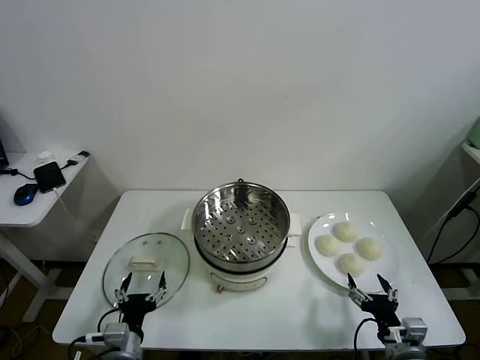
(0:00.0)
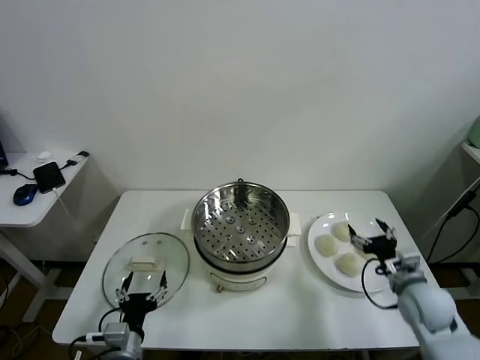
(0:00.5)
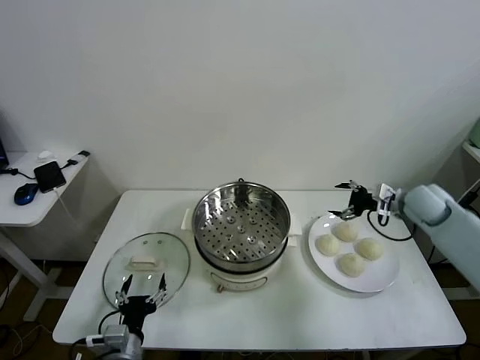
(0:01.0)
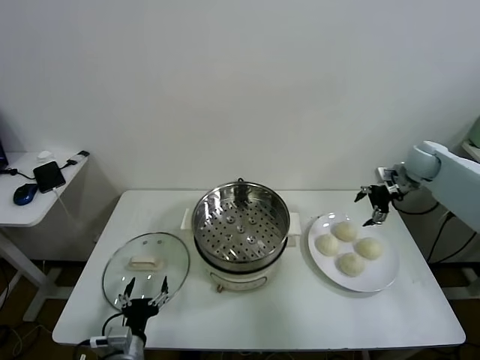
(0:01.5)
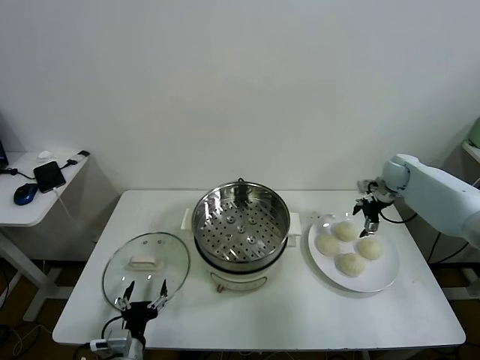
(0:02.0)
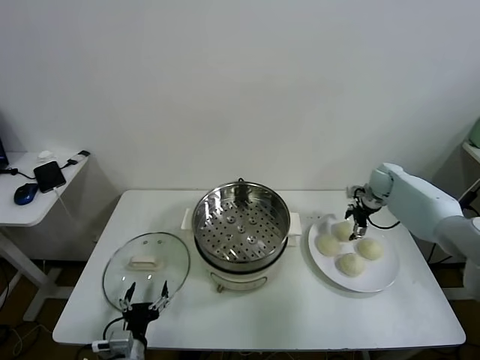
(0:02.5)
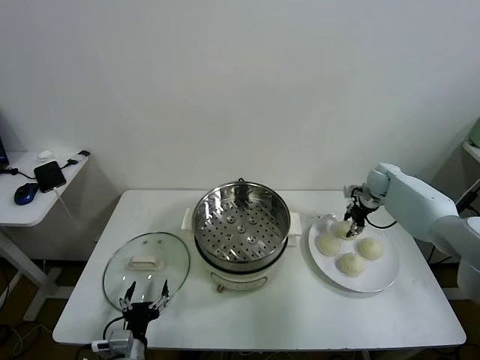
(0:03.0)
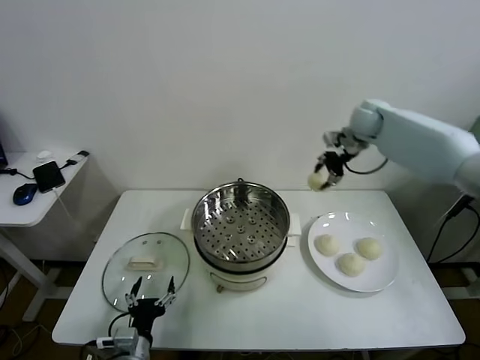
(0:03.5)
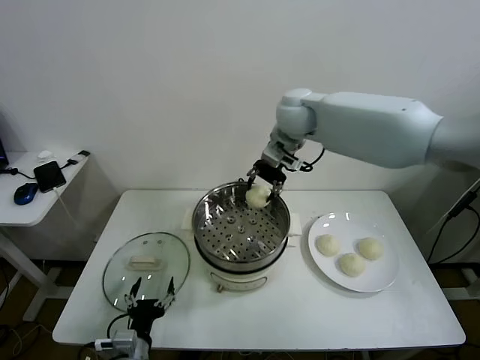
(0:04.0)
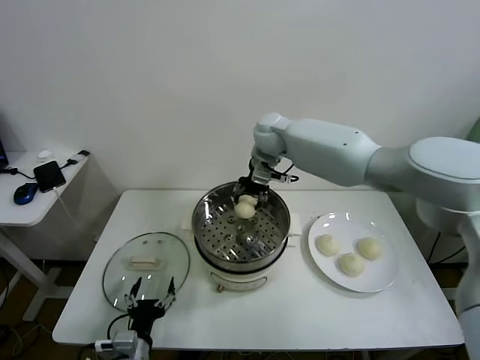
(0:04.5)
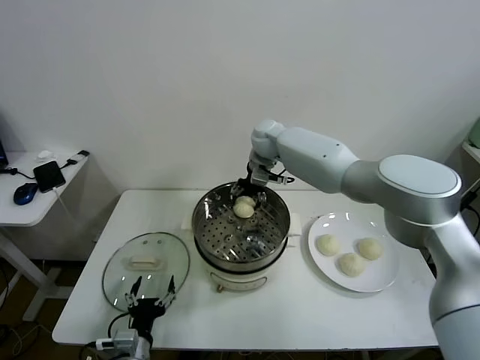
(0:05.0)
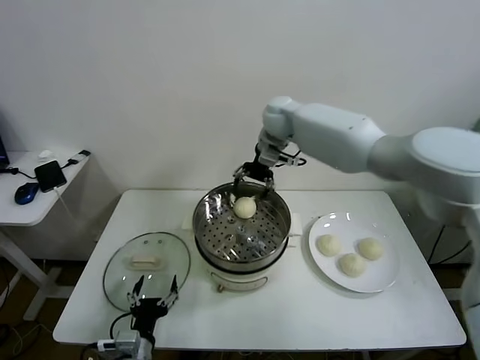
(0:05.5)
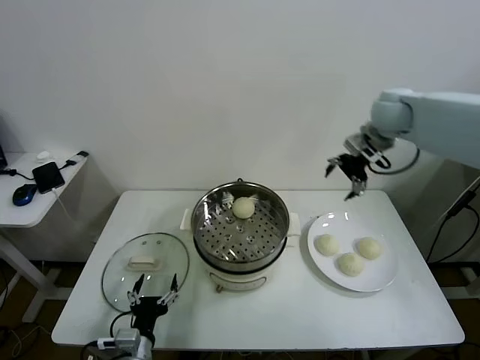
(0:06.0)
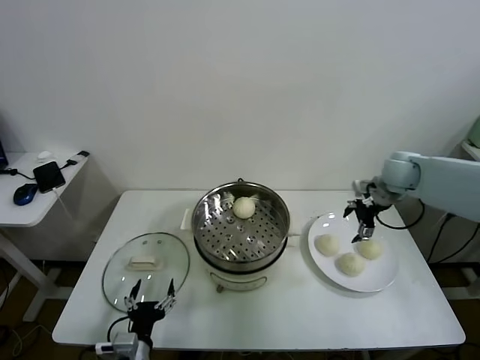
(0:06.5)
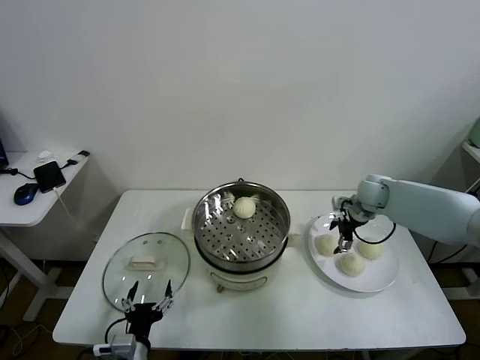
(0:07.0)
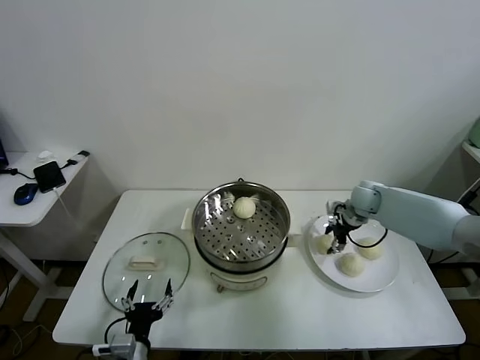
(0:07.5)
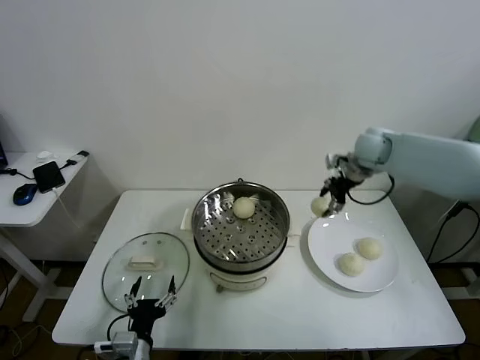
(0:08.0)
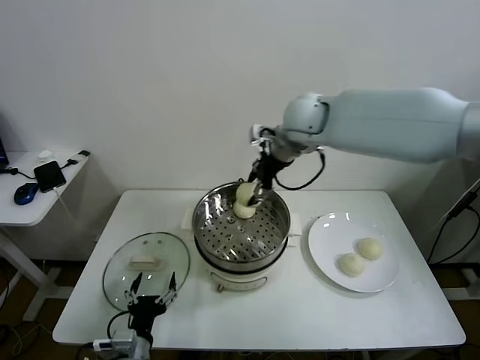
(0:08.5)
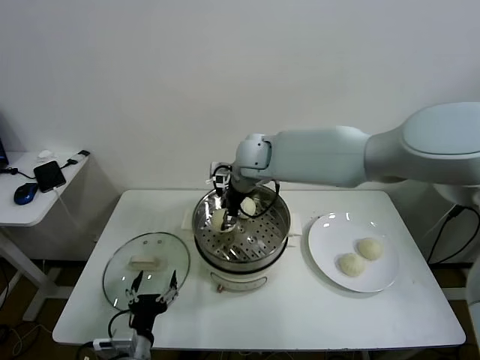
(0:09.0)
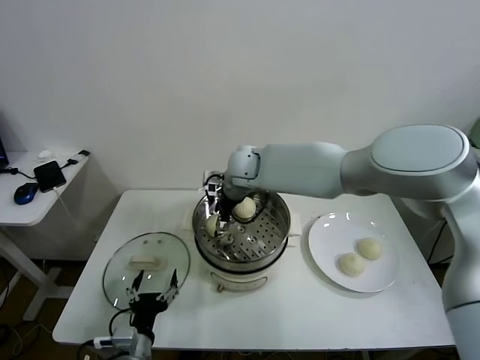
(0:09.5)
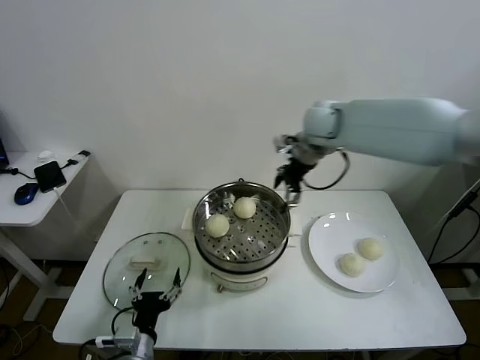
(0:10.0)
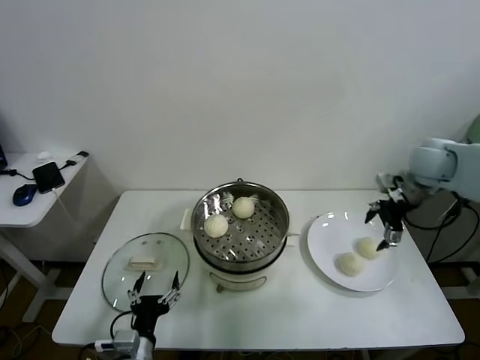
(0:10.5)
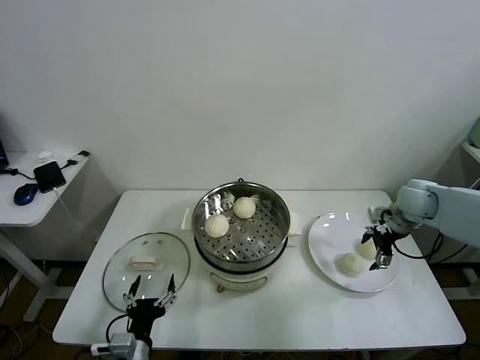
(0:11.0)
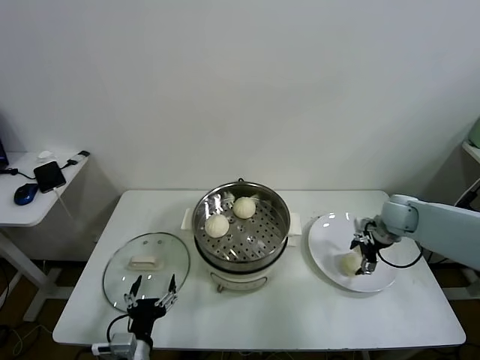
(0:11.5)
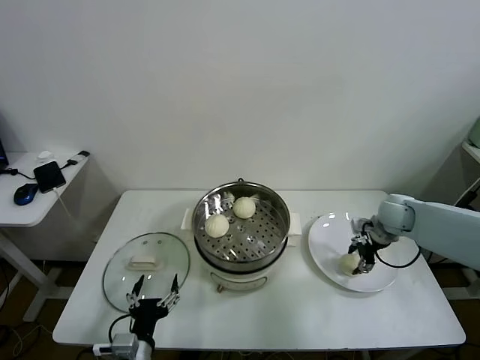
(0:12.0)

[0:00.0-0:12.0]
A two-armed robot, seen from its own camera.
Task of the whole recording: take steamed baozi put them in steamer.
Step, 0:00.0 to 0:02.5: Grasp the baozi in the plate with right gripper.
Step, 0:03.0 to 0:05.0: Place the baozi on the steamer with right gripper.
Step, 0:05.5 to 0:07.5: Grasp the baozi in the plate with right gripper.
Step, 0:08.0 to 0:09.5: Place the baozi on the steamer with right gripper.
Step, 0:10.0 to 0:11.5: Grasp the baozi in the plate with right gripper.
0:02.0 to 0:04.0: The right gripper is displaced to the left and upward by some 35 cm, and closes its fingers.
0:04.0 to 0:06.0: The right gripper moves to the right, about 25 cm, and opens its fingers.
0:06.0 to 0:08.0: The right gripper reaches about 25 cm downward, then returns, and closes.
0:08.0 to 0:10.0: The right gripper travels upward by roughly 5 cm, reaches some 30 cm to the left, then returns, and opens.
0:10.0 to 0:12.0: The right gripper heads downward and to the right, covering about 30 cm, and closes its fingers.

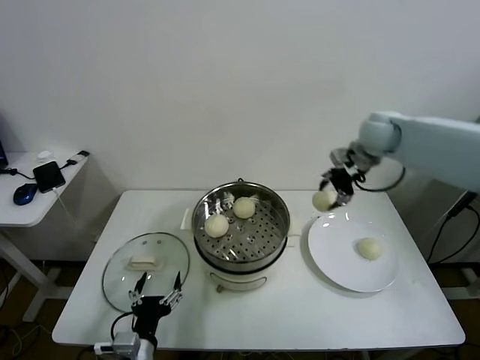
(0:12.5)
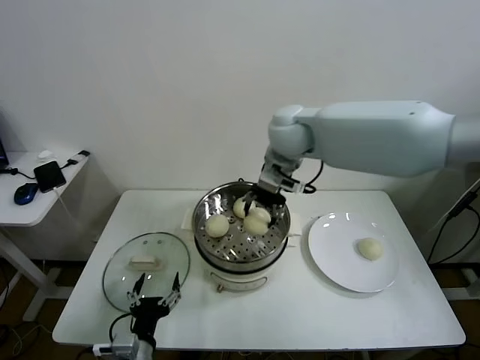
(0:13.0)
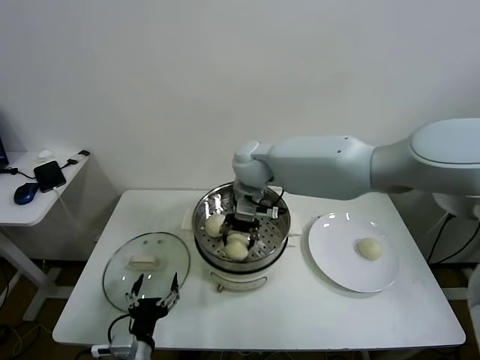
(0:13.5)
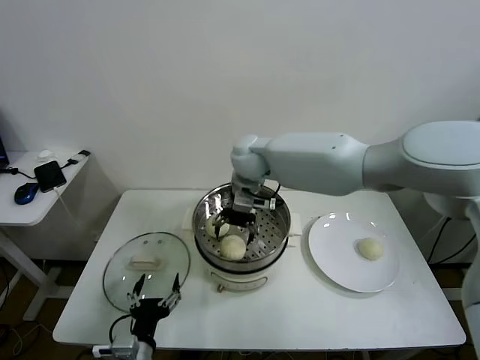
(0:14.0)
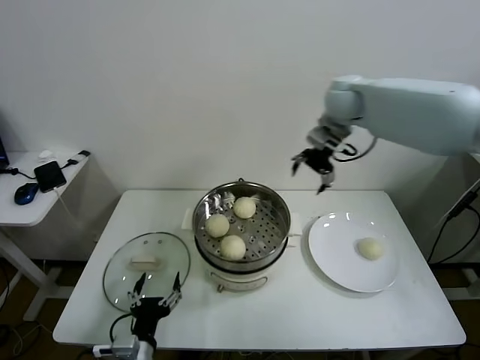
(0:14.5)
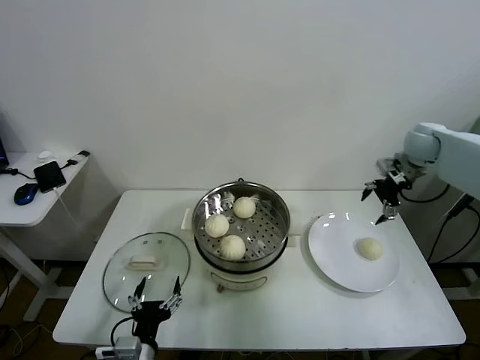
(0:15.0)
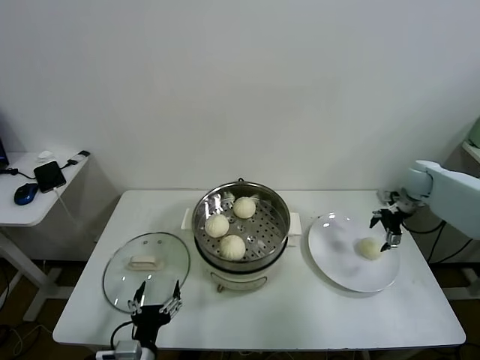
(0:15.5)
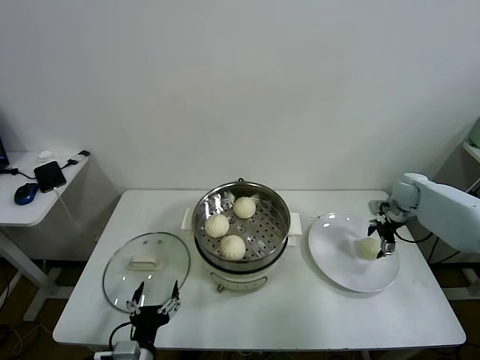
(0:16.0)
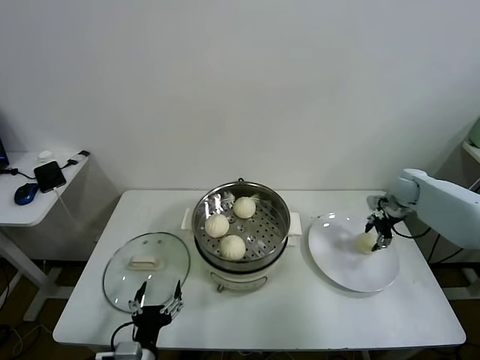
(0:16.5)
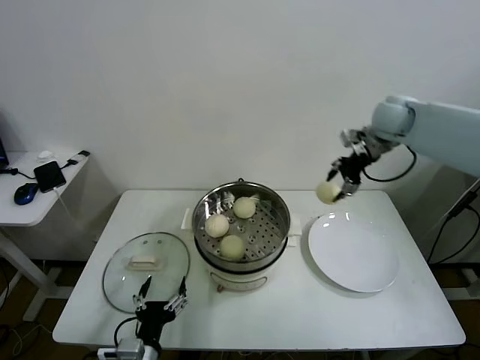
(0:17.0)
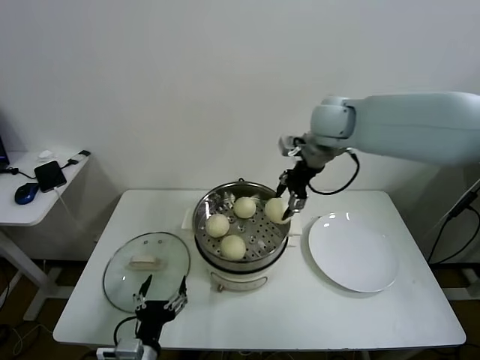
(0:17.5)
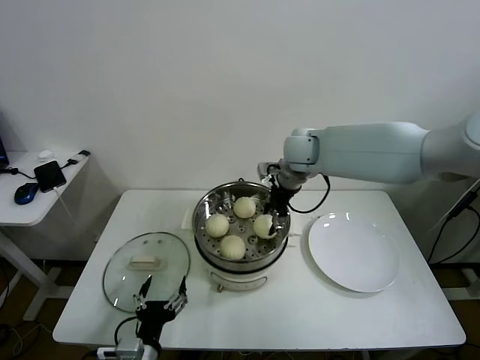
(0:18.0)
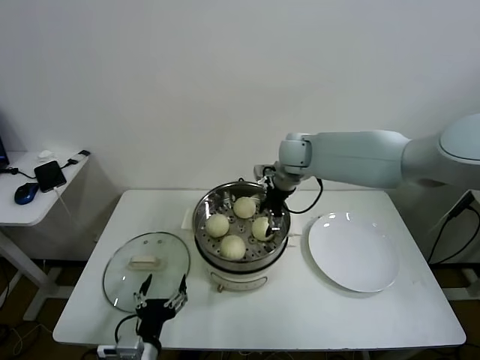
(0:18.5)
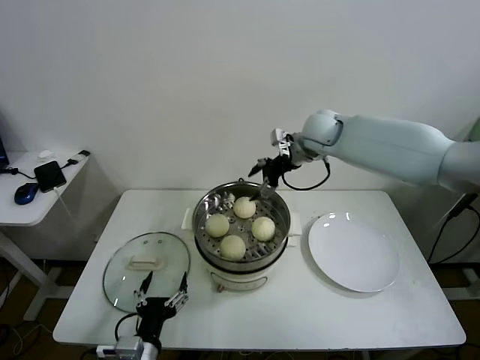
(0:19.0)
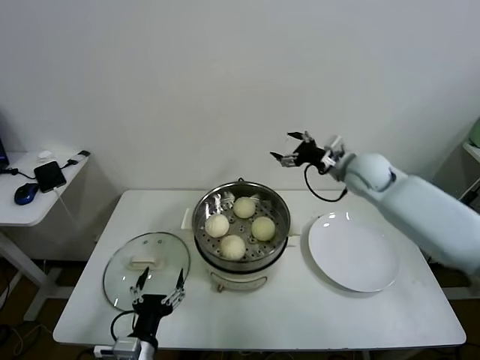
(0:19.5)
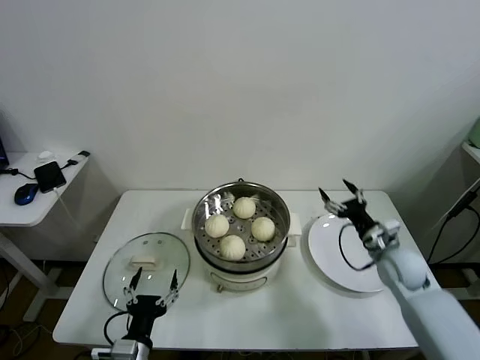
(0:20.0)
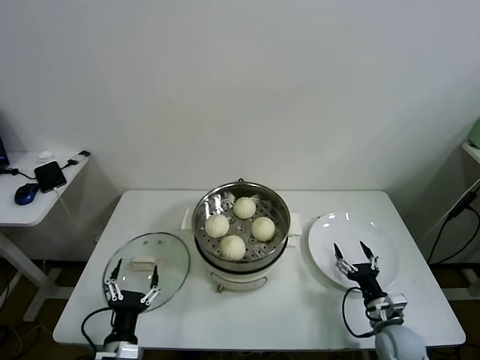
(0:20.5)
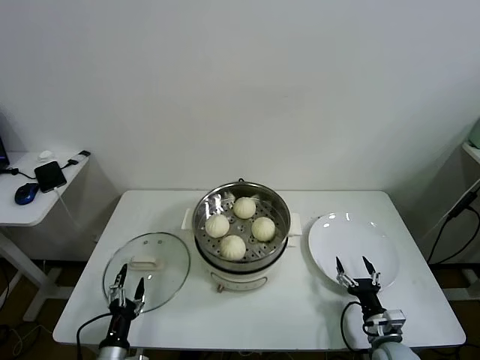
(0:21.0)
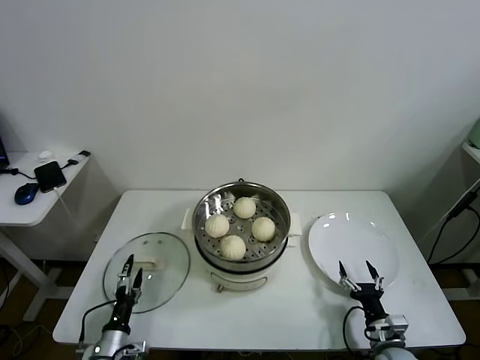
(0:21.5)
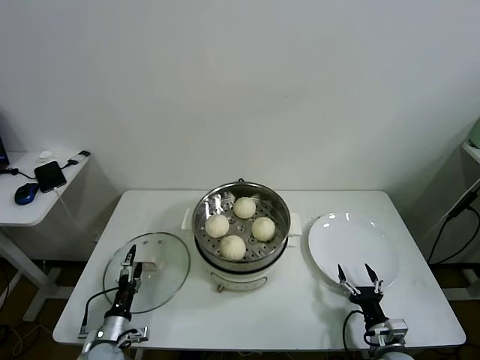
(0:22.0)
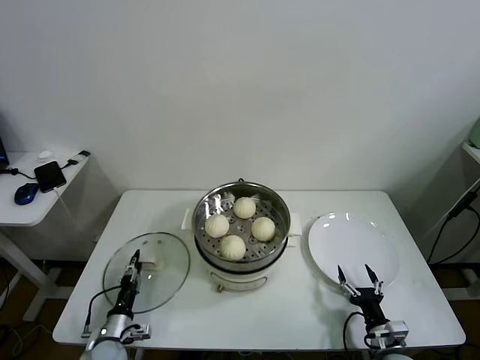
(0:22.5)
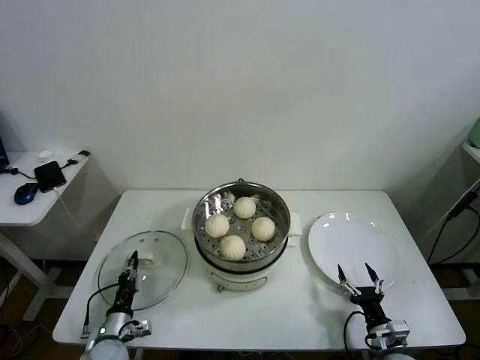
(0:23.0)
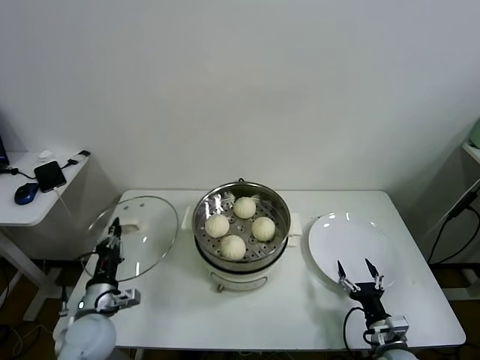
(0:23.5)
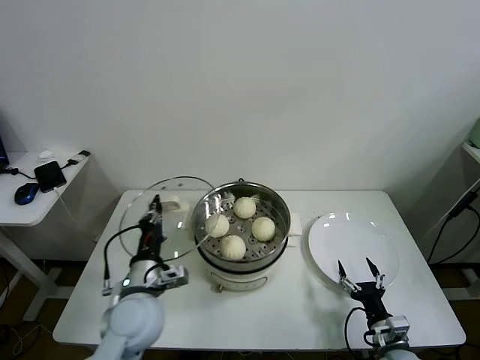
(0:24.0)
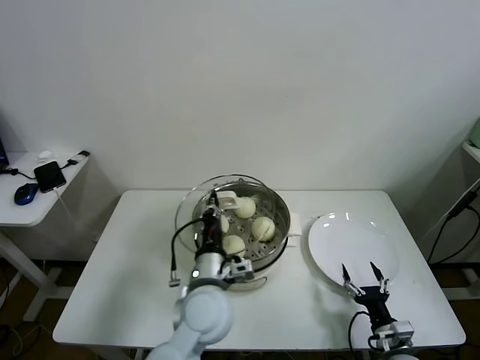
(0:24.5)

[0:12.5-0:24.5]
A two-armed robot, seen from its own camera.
Task of the whole recording: take steamed baozi put them in steamer.
Step, 0:12.5 to 0:14.0: Place the baozi on the steamer with right gripper.
Step, 0:14.5 to 0:16.0: Grasp the baozi in the plate with right gripper.
Step, 0:16.5 to 0:18.5: Place the baozi on the steamer with right gripper.
Step, 0:19.0 to 0:22.5: Grasp the pot lid with left gripper.
0:12.5 to 0:14.5: The right gripper travels to the left and back again, roughly 25 cm each way, and opens up.
0:14.5 to 0:16.5: The right gripper travels downward and to the right by roughly 30 cm, and closes its fingers.
0:16.5 to 0:18.5: The right gripper moves to the left, about 30 cm, and opens.
0:18.5 to 0:20.5: The left gripper moves roughly 5 cm. The right gripper heads downward, backward and to the right, covering roughly 50 cm.
0:20.5 to 0:22.5: The right gripper travels backward by about 5 cm, while the left gripper shifts approximately 15 cm downward, to the left and forward, and closes its fingers.
0:22.5 to 0:24.5: The left gripper heads to the right and upward, covering some 35 cm, and closes up.

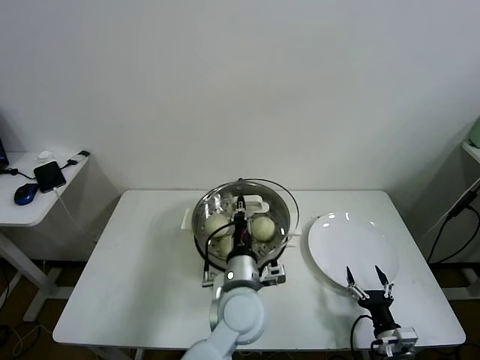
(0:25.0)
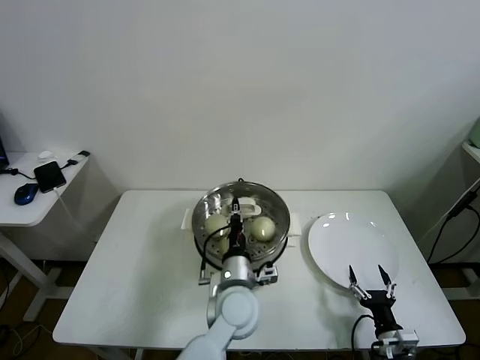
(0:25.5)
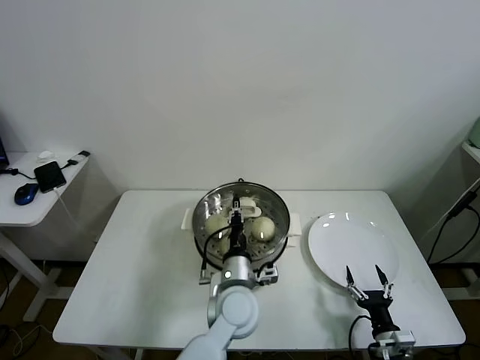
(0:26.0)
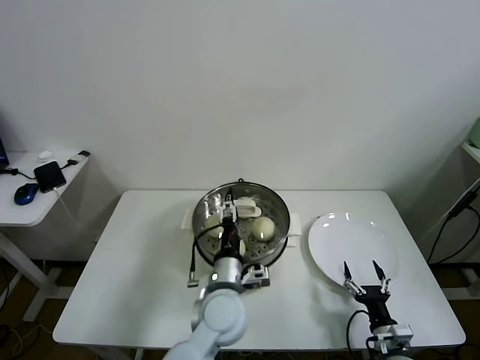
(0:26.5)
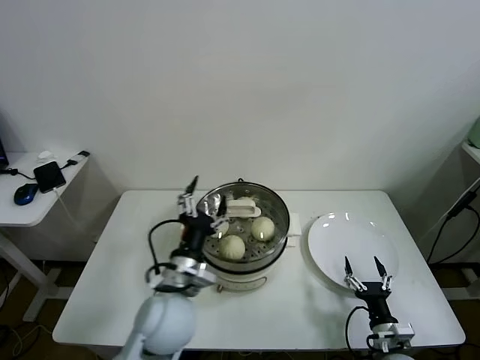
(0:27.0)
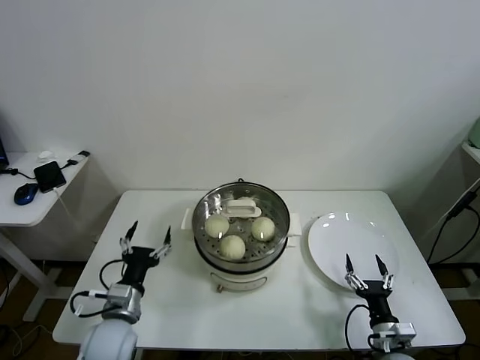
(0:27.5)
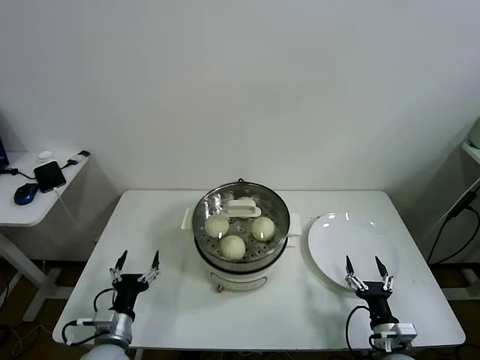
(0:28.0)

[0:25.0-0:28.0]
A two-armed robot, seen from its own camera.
Task of the whole recording: take steamed baozi put them in steamer.
0:25.0 to 0:26.5: The left gripper opens.
0:26.5 to 0:28.0: The left gripper is displaced to the left and downward by some 30 cm.
